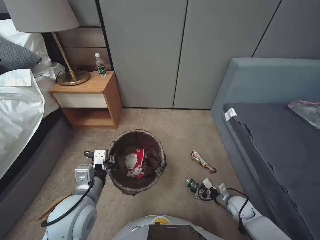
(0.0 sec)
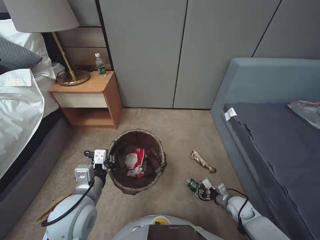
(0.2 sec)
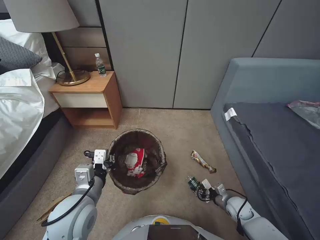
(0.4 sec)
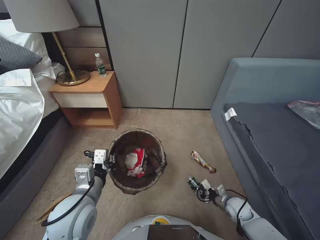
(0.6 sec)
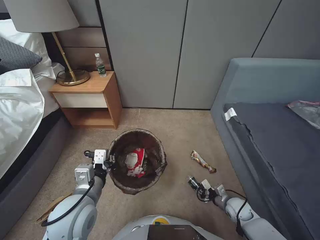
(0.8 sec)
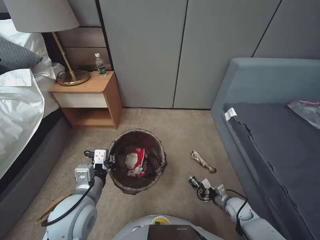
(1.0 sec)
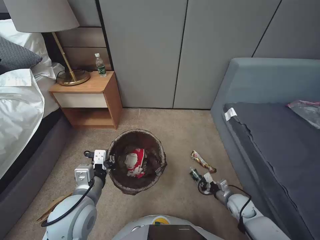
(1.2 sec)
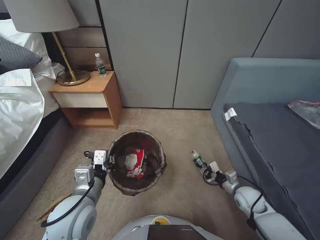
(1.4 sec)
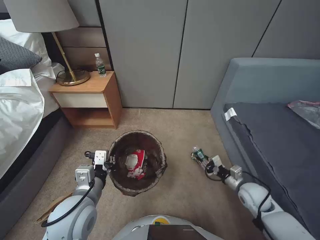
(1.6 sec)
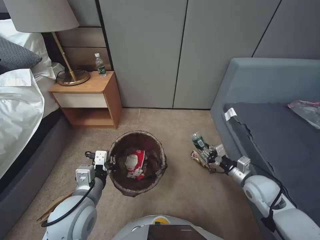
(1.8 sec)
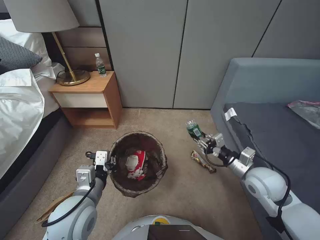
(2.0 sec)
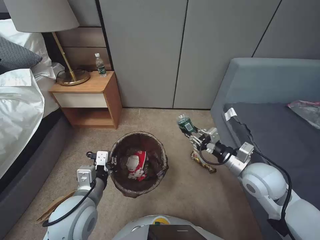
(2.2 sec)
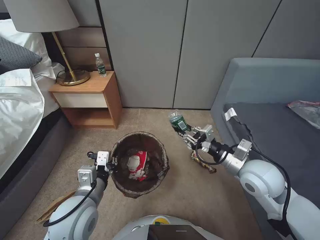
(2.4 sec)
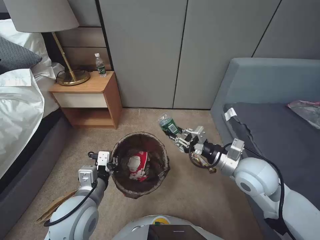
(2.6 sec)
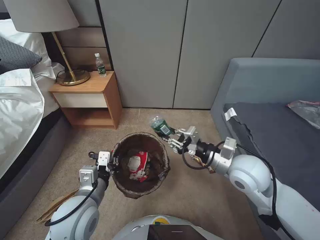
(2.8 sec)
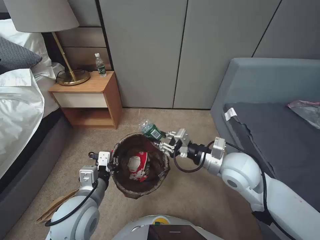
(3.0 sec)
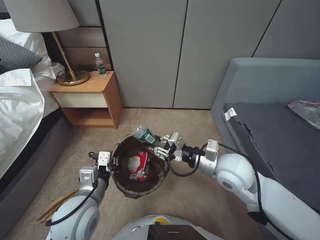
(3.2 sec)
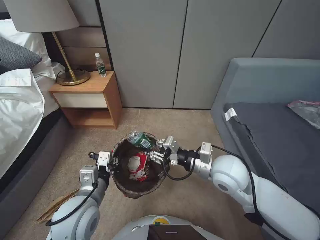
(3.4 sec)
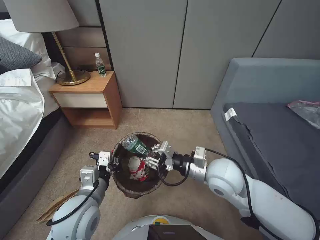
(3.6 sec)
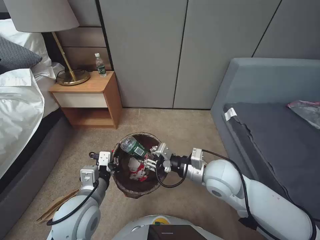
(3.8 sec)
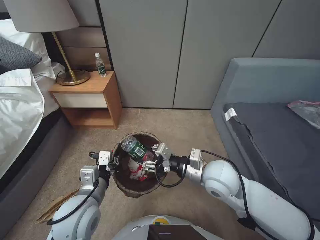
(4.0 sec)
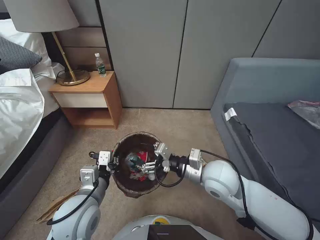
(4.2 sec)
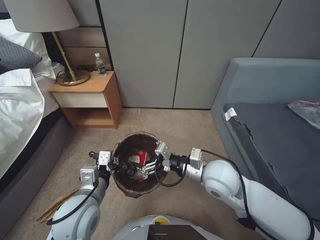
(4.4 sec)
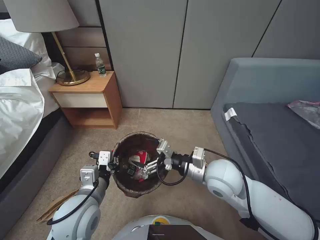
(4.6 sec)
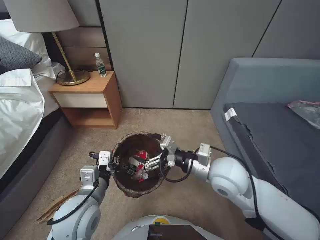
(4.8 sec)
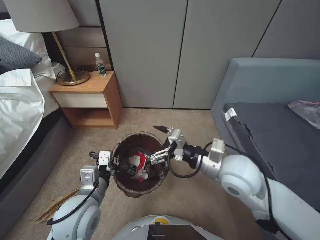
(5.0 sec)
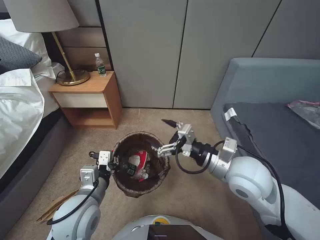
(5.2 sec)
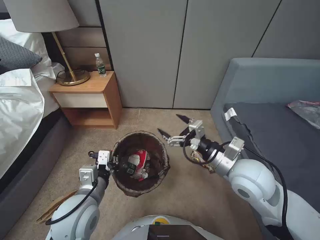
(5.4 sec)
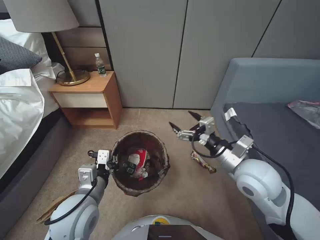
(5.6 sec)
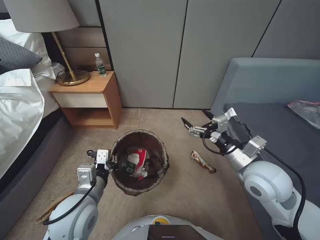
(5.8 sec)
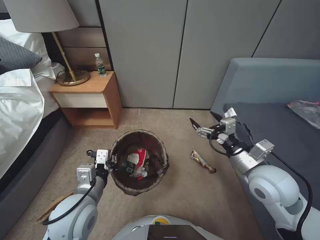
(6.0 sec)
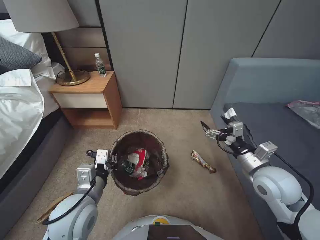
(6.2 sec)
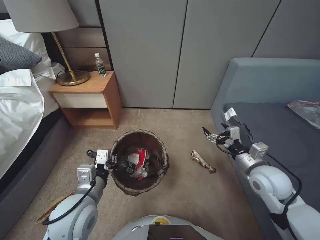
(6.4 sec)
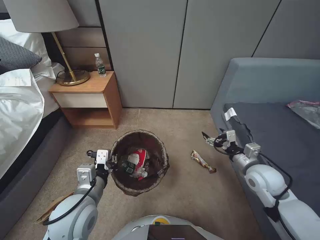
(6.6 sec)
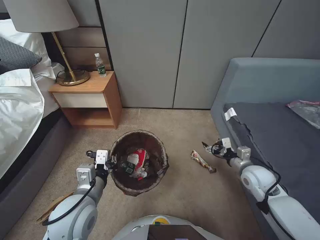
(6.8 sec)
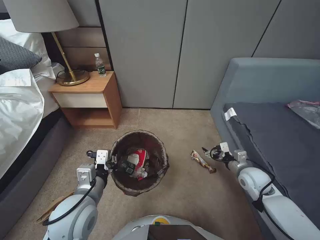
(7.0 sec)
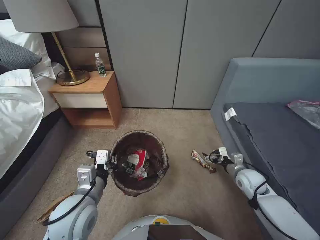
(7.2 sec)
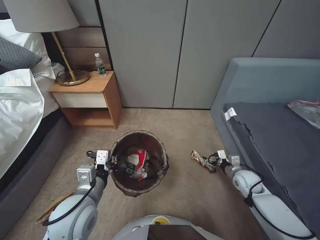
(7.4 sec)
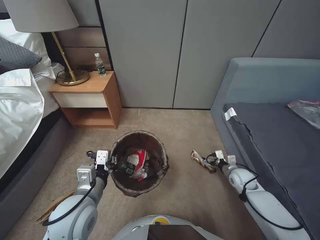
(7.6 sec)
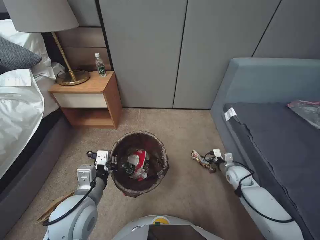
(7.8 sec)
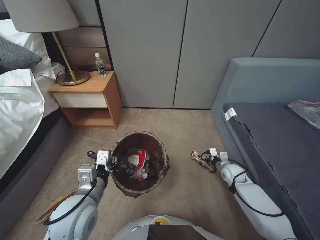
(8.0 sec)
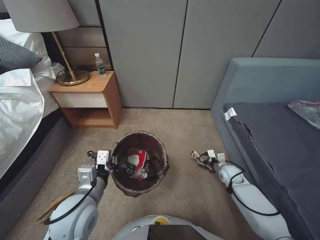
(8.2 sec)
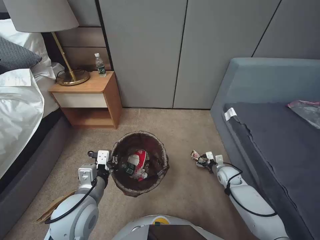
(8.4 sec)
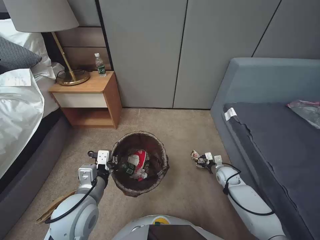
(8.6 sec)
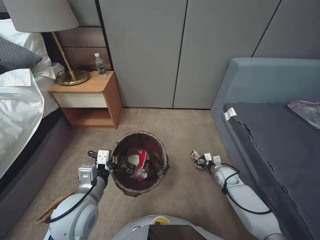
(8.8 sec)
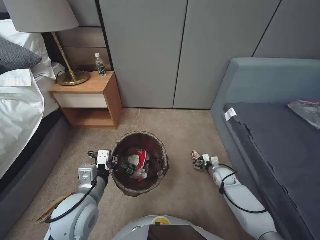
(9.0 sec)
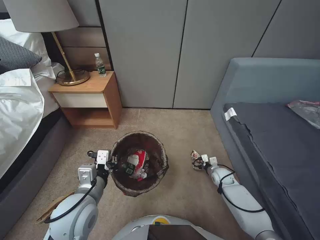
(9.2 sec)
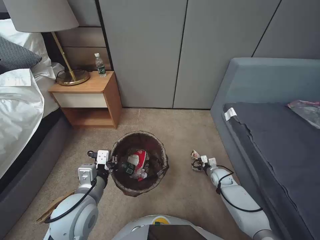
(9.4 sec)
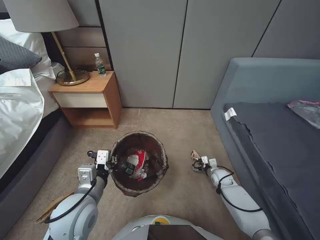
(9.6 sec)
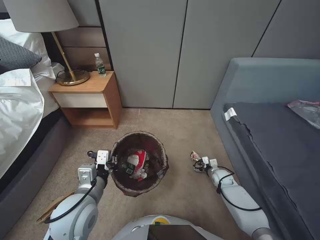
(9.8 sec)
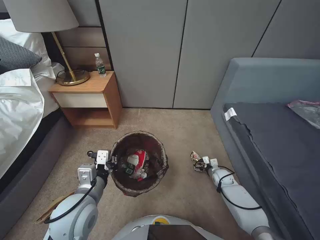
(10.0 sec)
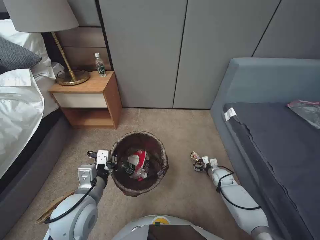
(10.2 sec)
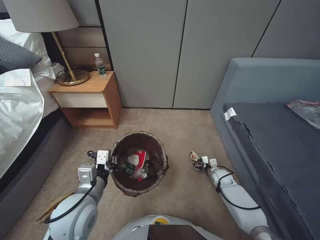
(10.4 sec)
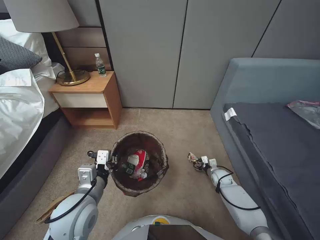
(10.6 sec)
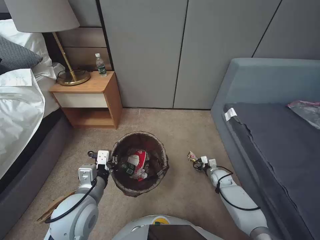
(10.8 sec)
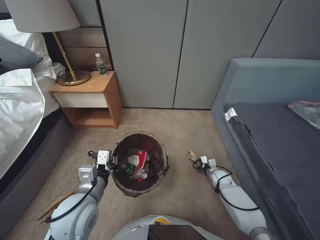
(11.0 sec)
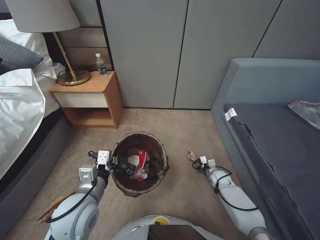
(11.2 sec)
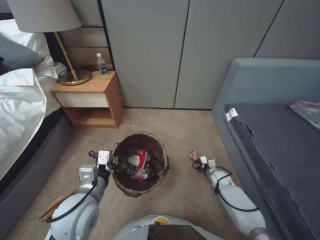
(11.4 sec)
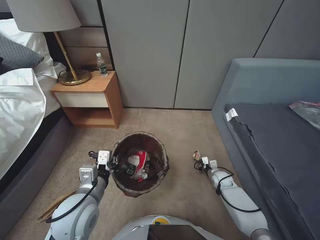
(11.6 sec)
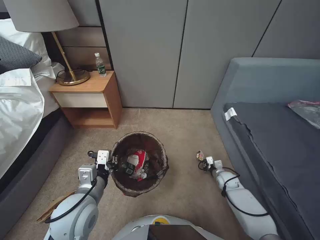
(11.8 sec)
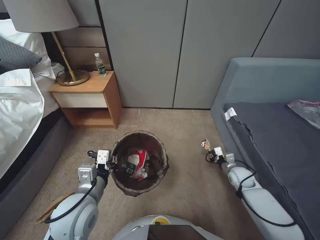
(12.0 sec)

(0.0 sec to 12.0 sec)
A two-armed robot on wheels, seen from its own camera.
Task of the whole recording: Pick up the trash bin, then pick up the garbage from the floor and place it into the trash bin.
0.0 sec - 1.6 sec: The right gripper shifts some 10 cm upward, and closes up.
1.6 sec - 3.0 sec: The right gripper goes roughly 25 cm upward and to the left.
3.0 sec - 4.4 sec: The right gripper is displaced to the left by some 5 cm, and opens.
4.4 sec - 6.0 sec: The right gripper travels to the right by some 10 cm.
6.0 sec - 7.6 sec: The right gripper moves downward and to the right, approximately 25 cm.
7.6 sec - 9.0 sec: The right gripper shifts roughly 5 cm downward.
9.0 sec - 10.4 sec: The grippers move only a little.
10.4 sec - 12.0 sec: The right gripper ends up some 5 cm from where it was, and closes.

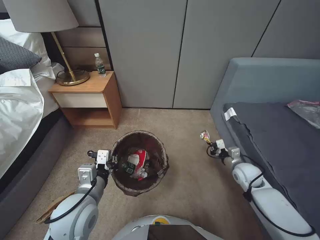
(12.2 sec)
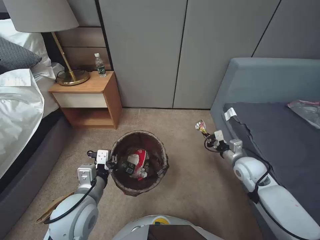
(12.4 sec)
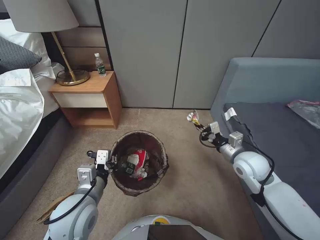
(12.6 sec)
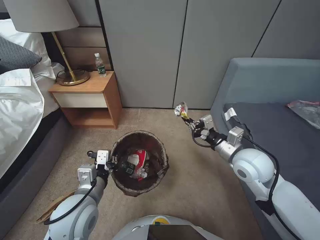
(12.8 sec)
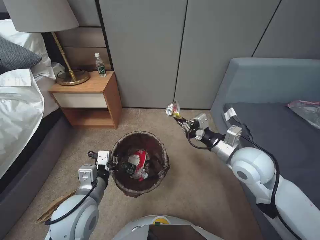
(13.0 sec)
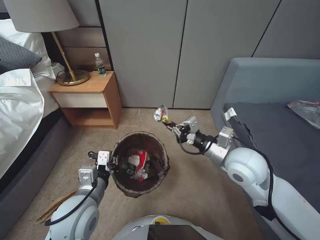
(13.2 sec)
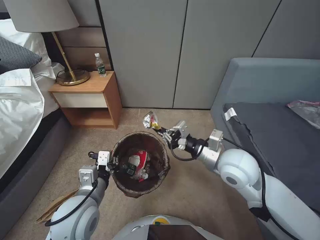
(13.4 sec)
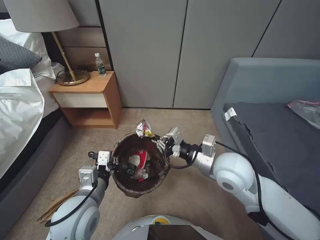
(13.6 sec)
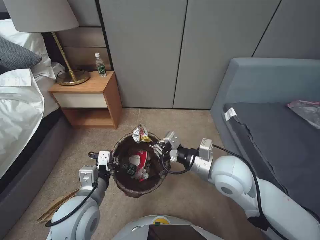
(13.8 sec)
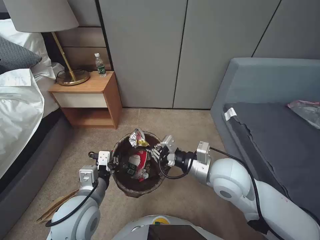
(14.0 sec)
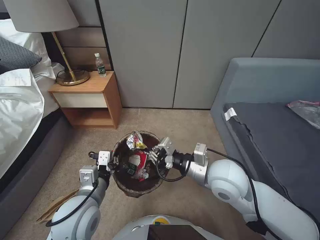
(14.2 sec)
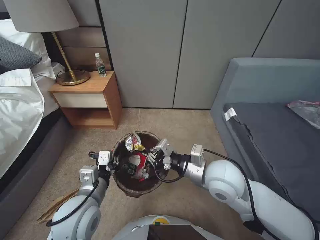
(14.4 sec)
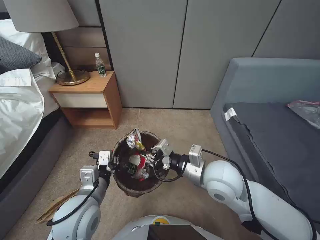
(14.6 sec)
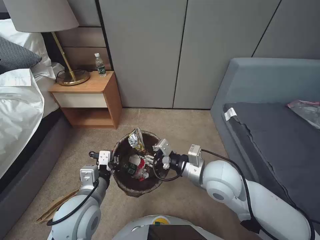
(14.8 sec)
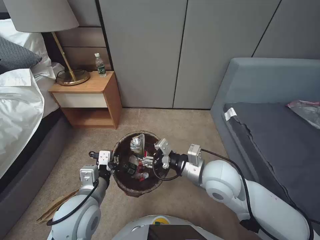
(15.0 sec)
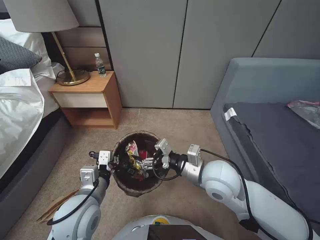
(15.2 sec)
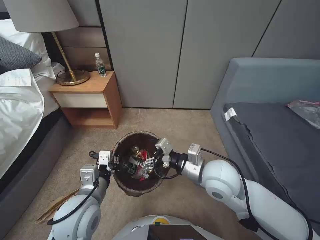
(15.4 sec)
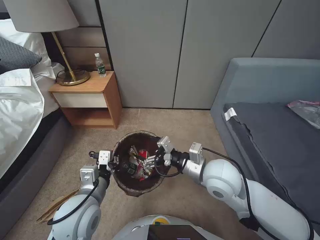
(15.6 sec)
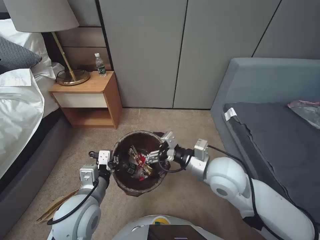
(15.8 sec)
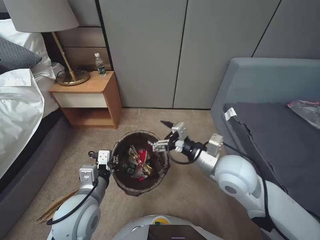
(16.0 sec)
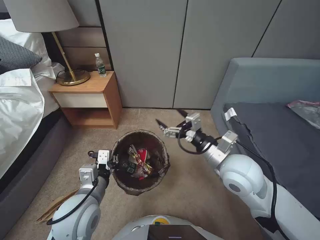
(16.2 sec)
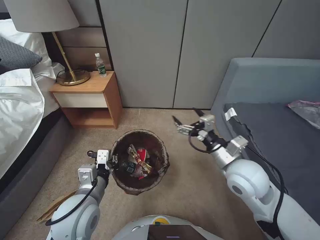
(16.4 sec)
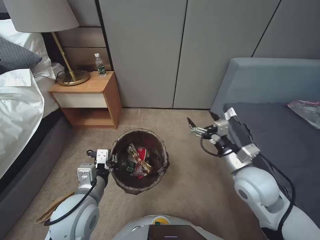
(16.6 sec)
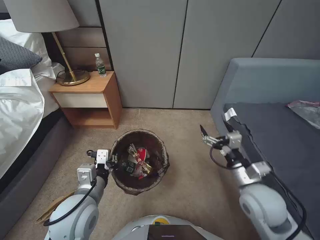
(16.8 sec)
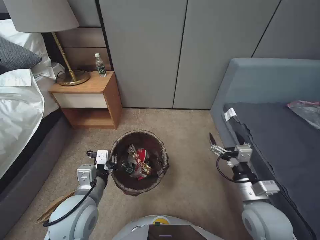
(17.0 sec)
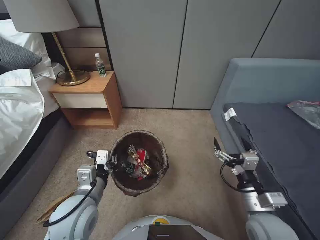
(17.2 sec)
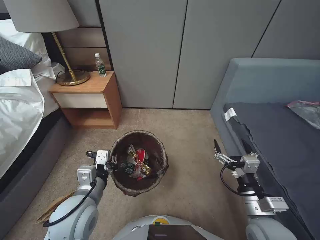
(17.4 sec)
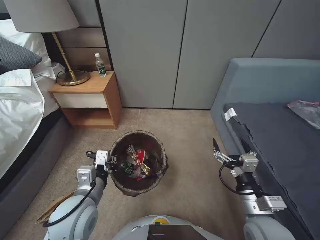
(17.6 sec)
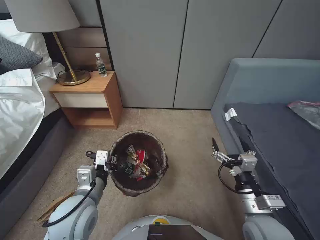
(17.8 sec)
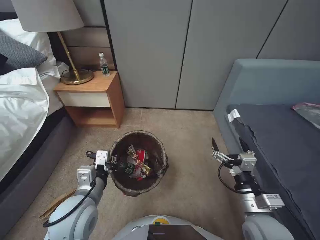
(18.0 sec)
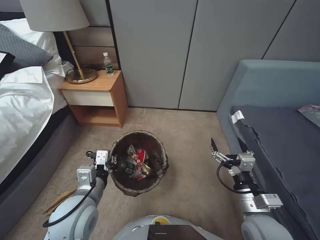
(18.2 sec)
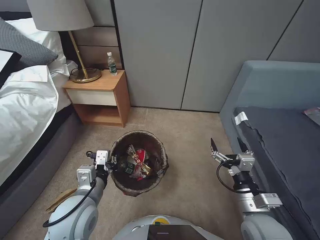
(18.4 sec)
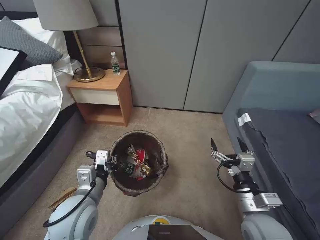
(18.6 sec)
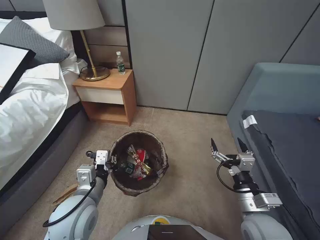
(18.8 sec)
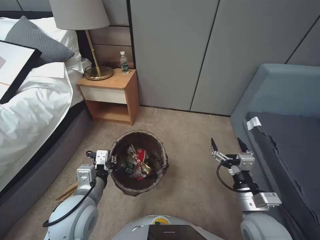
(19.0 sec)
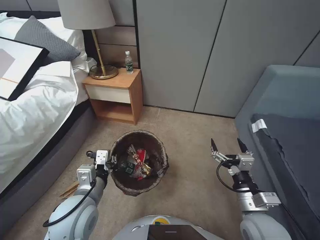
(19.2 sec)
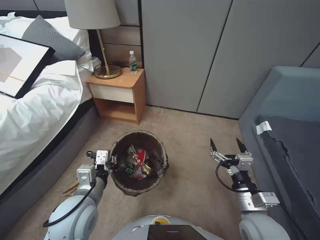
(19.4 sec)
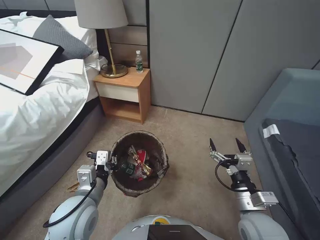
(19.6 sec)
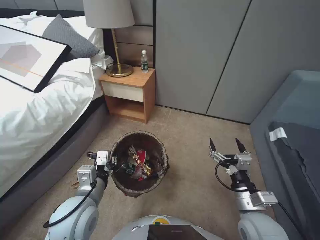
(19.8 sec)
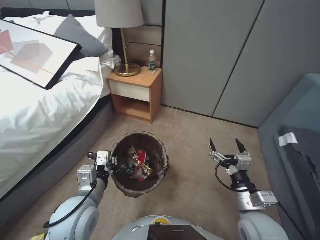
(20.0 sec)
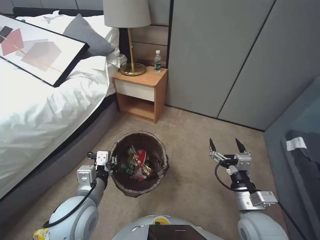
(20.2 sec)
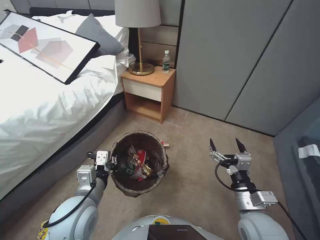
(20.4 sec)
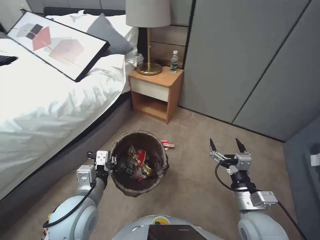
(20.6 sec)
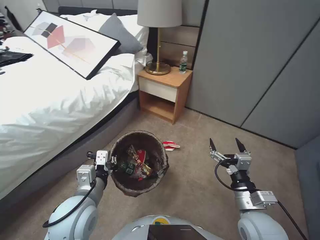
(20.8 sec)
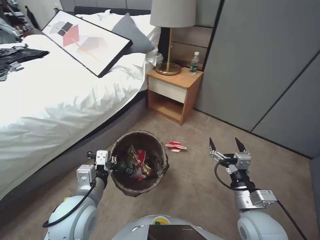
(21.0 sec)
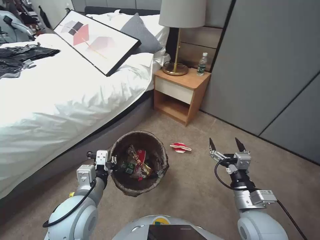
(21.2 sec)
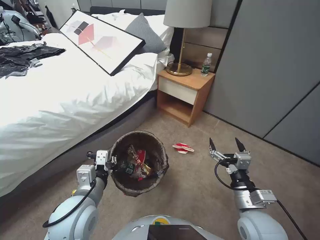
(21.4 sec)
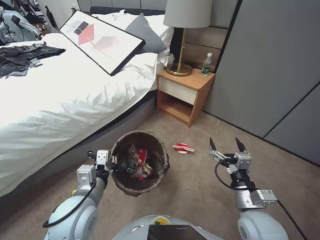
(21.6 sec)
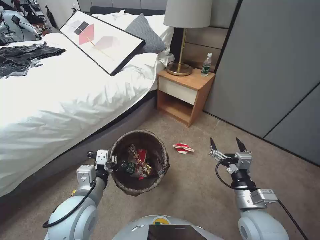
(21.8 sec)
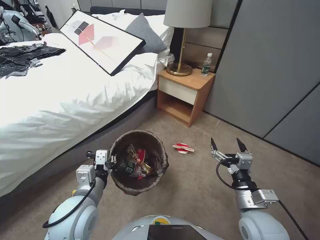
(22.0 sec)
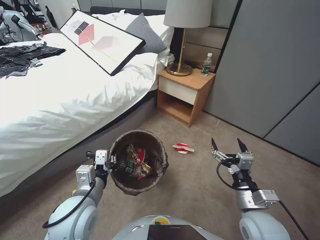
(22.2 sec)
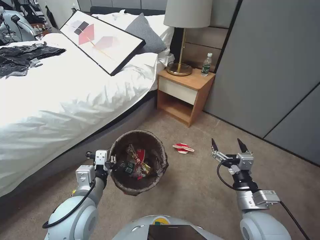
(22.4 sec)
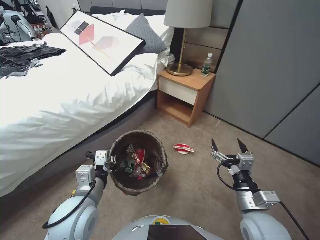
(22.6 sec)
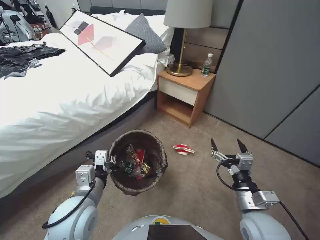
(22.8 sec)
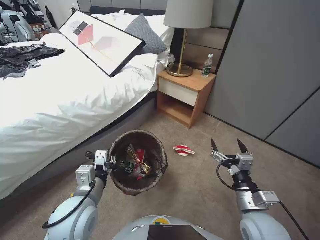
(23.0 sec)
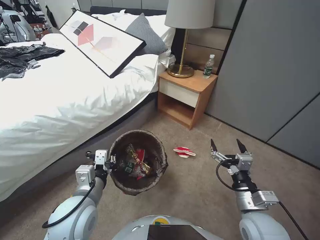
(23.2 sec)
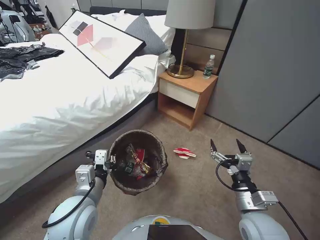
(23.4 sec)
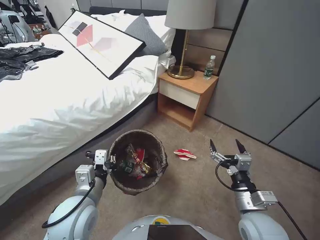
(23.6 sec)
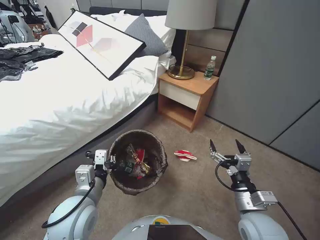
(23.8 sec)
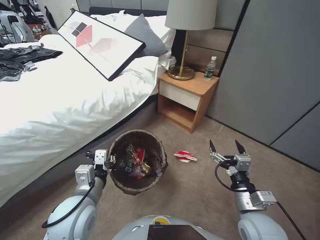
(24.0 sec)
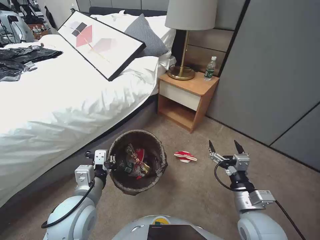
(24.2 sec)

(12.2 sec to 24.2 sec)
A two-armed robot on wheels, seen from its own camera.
Task of the whole recording: Pick up the trash bin, then pick up the garbage from the floor and place it into the trash bin.
12.2 sec - 13.8 sec: The right gripper shifts some 30 cm upward and to the left.
13.8 sec - 15.2 sec: The right gripper opens.
15.2 sec - 16.6 sec: The right gripper heads to the right, covering approximately 10 cm.
16.6 sec - 18.2 sec: The right gripper is displaced backward and downward by approximately 10 cm.
21.2 sec - 22.6 sec: Both grippers stay put.
